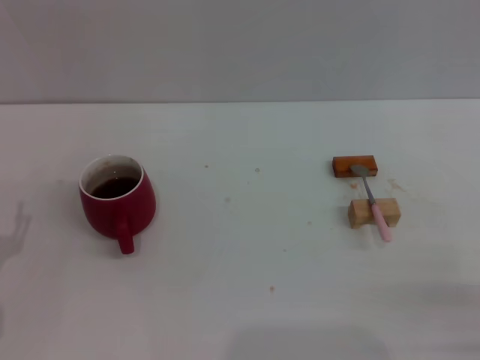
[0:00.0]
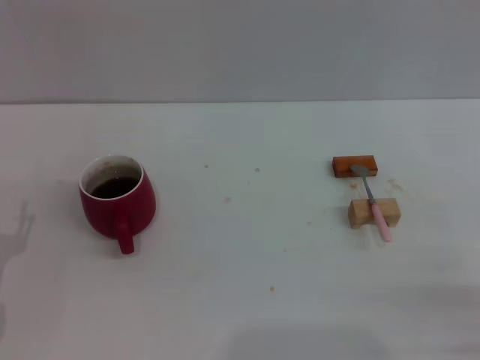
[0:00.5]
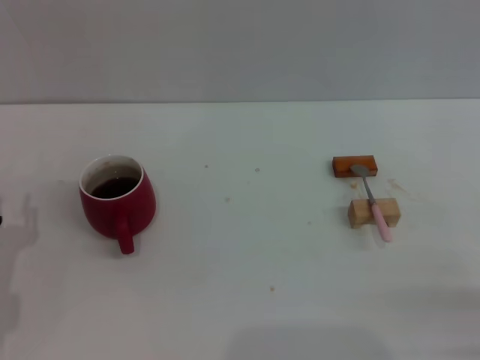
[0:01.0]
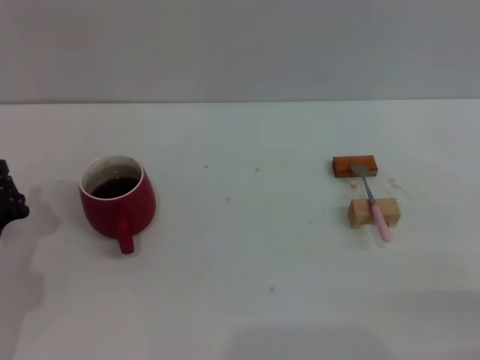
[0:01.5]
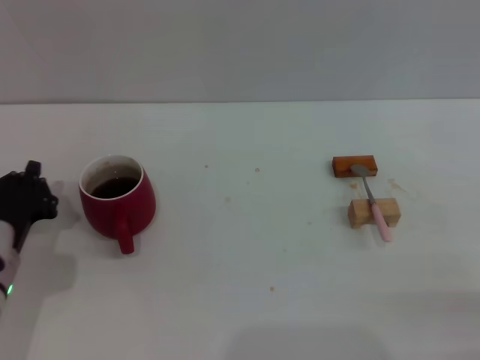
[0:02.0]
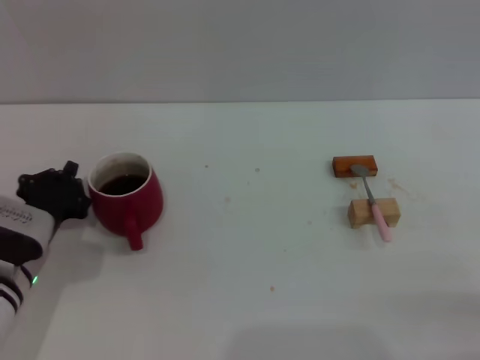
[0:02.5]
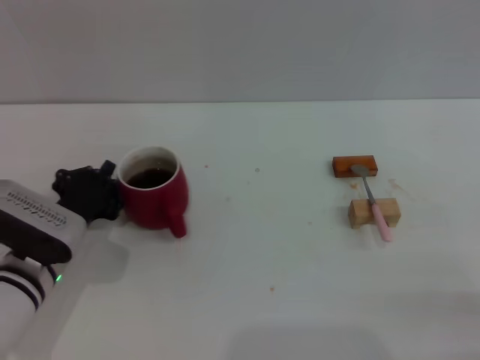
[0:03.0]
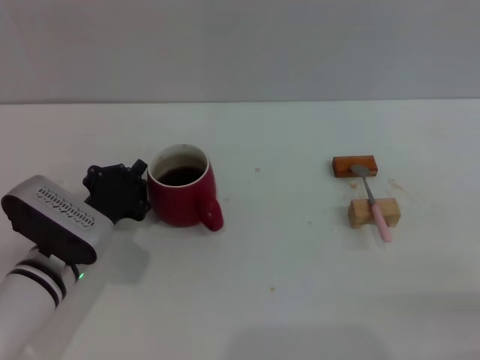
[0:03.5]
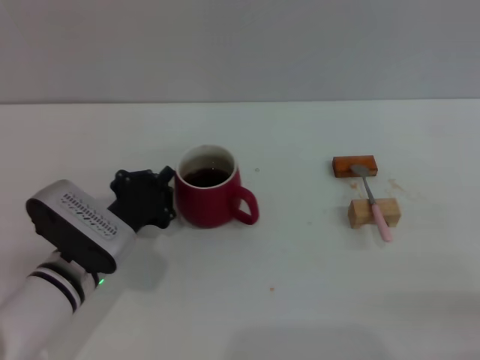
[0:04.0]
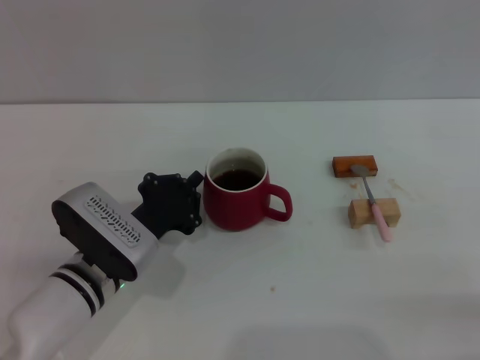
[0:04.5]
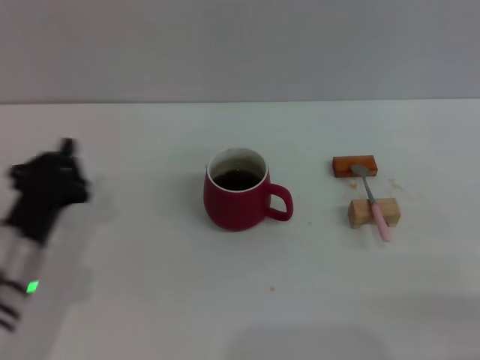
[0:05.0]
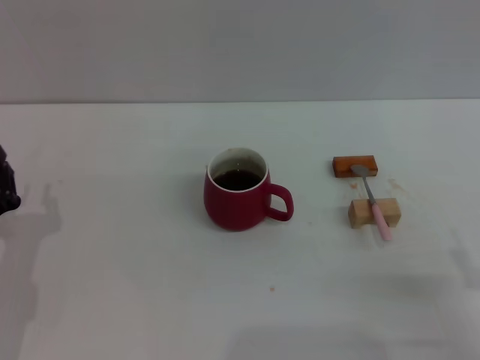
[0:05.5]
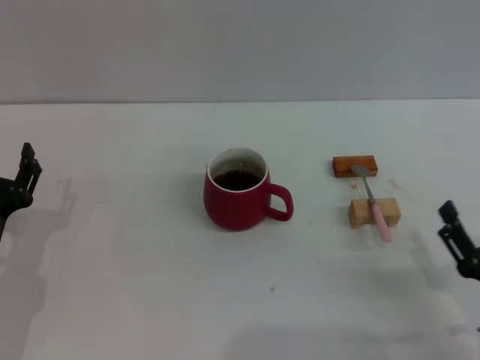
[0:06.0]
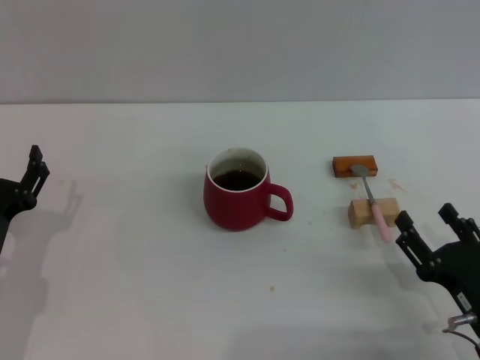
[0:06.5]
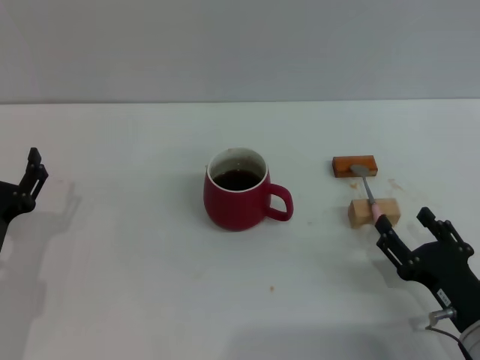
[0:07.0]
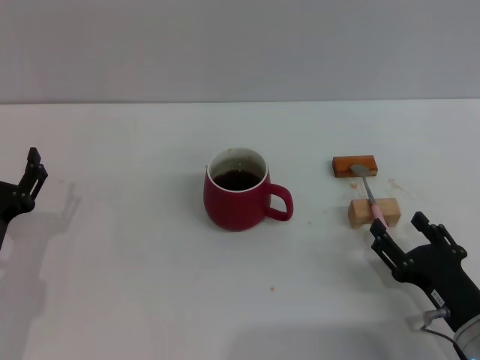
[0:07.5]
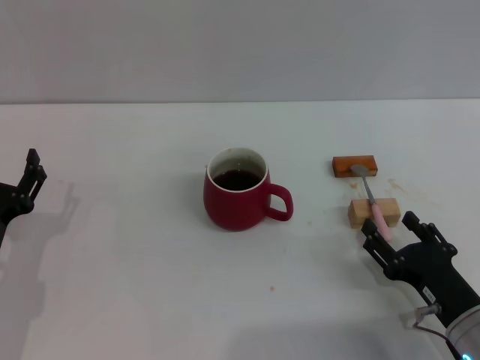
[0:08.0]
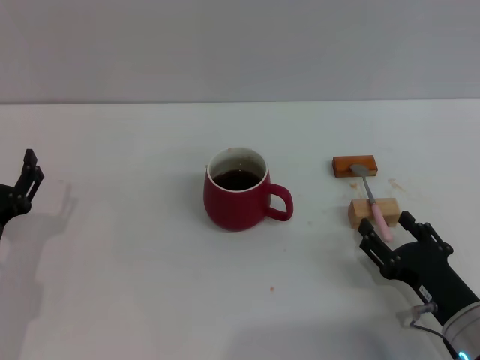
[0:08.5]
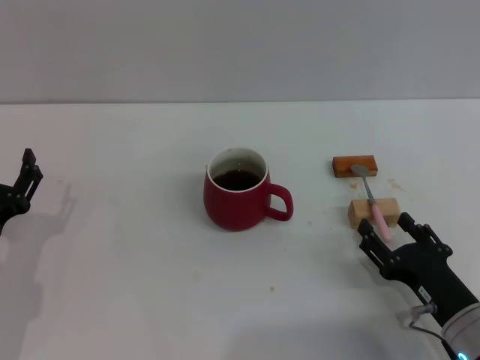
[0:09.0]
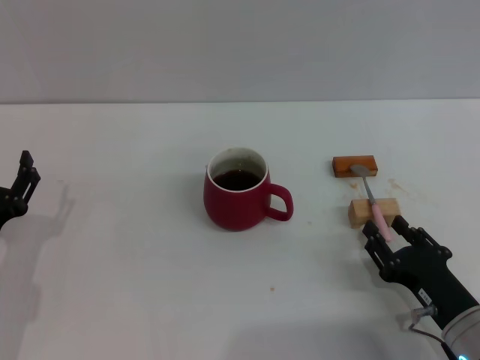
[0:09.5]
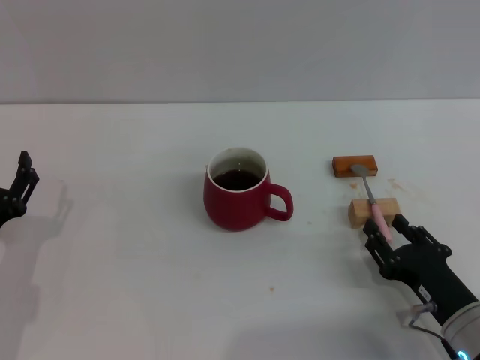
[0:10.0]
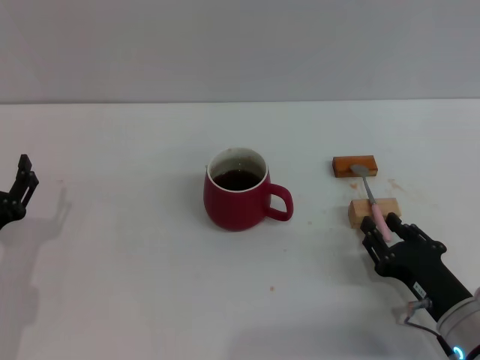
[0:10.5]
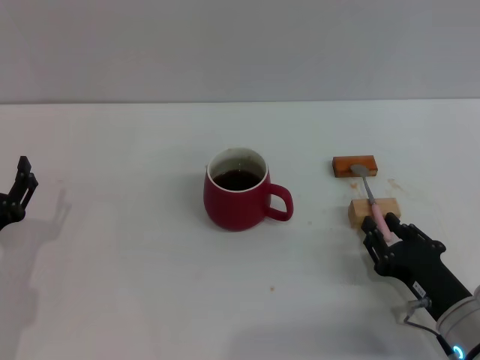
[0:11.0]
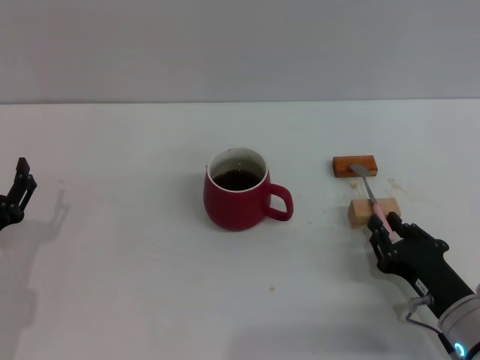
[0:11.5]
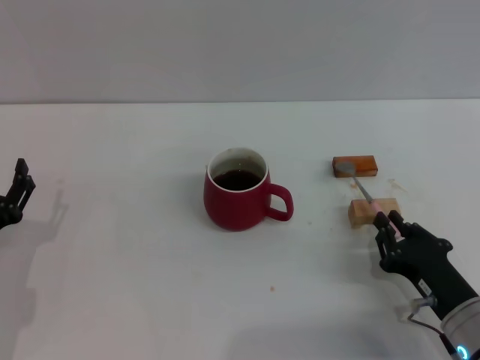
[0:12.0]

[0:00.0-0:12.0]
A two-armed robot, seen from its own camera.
Task of the whole recording: Move the red cup to the center, lift the pink spoon, stir it three times in the cup, and put the spoon into the cup.
Step, 0:00.0 to 0:07.0: Move the cup with coffee to the center of view with the left gripper.
0:00.0 to 0:02.0: The left gripper travels forward by some 5 cm, and closes.
0:02.0 to 0:04.0: The left gripper travels to the right by some 10 cm.
0:04.0 to 0:06.0: The left gripper shifts approximately 10 cm to the left and backward, and opens. Meanwhile the right gripper goes some 5 cm to the left.
0:06.0 to 0:08.0: The right gripper changes place by about 5 cm. Meanwhile the left gripper opens up.
0:08.0 to 0:10.0: The right gripper closes up.
0:10.0 to 0:12.0: The right gripper closes its fingers.

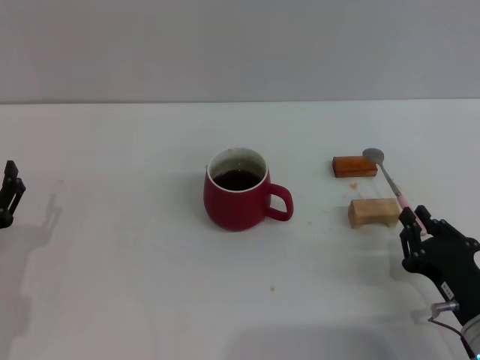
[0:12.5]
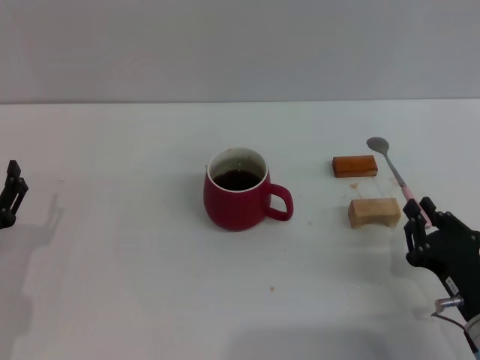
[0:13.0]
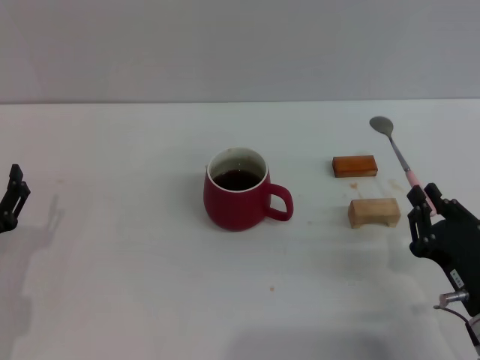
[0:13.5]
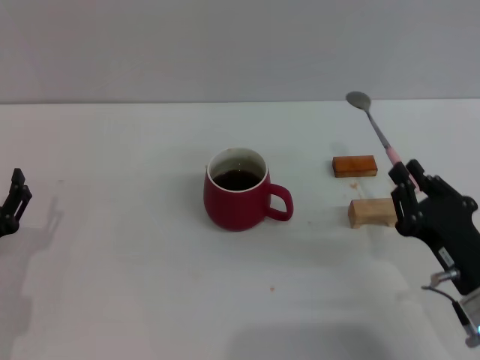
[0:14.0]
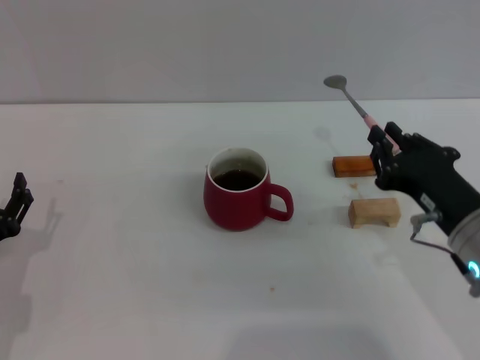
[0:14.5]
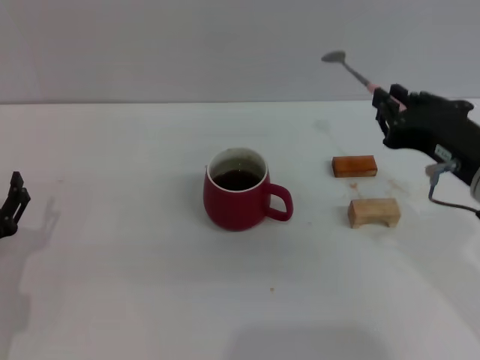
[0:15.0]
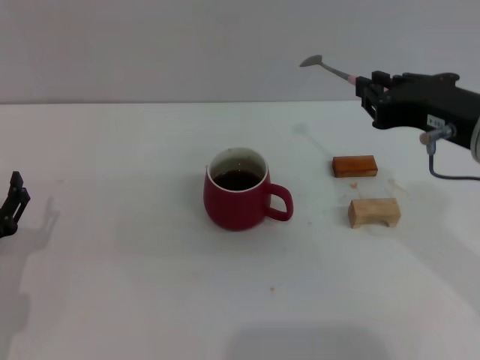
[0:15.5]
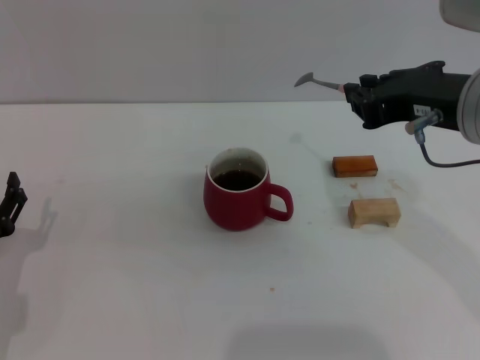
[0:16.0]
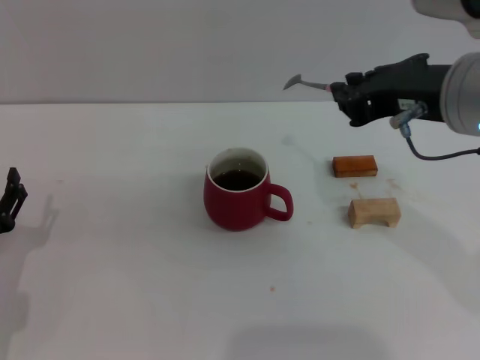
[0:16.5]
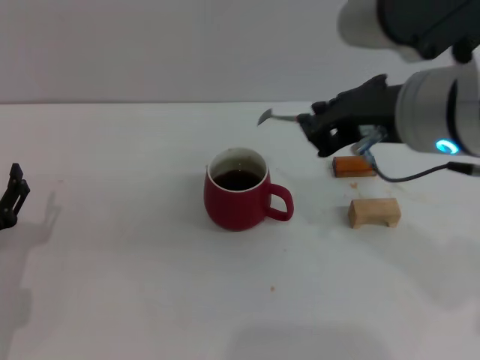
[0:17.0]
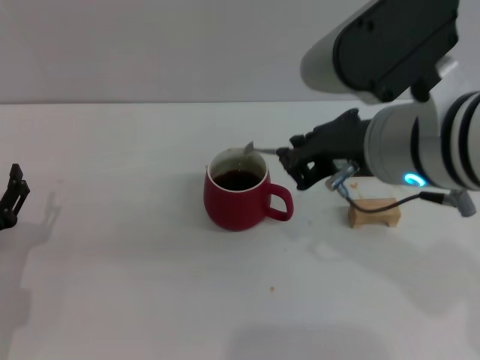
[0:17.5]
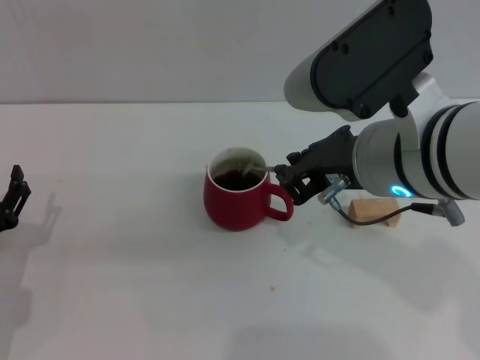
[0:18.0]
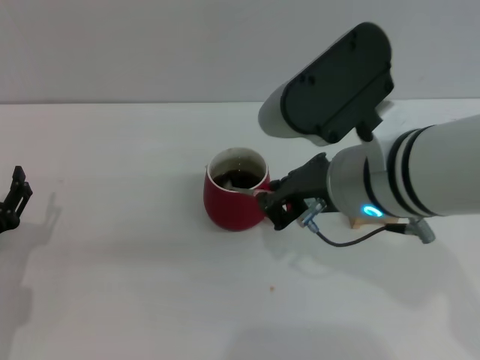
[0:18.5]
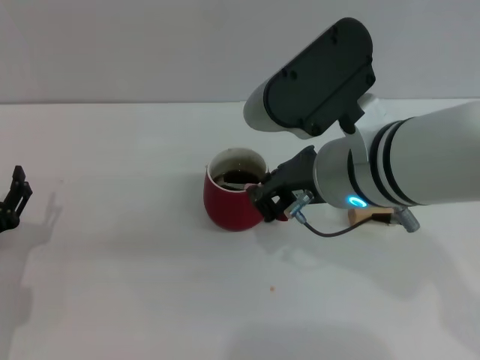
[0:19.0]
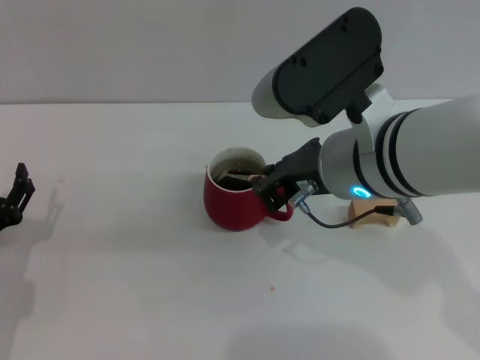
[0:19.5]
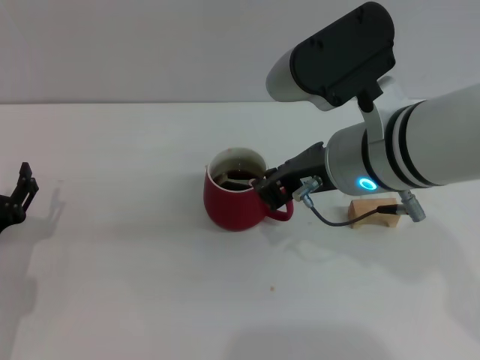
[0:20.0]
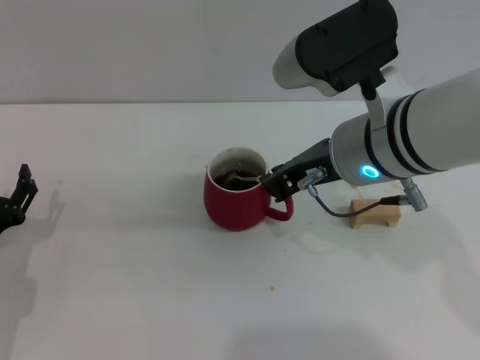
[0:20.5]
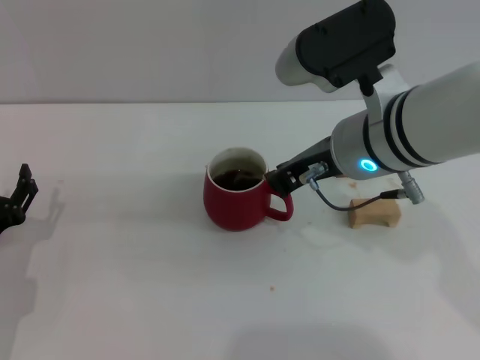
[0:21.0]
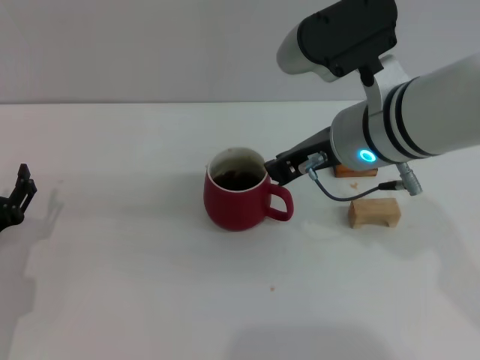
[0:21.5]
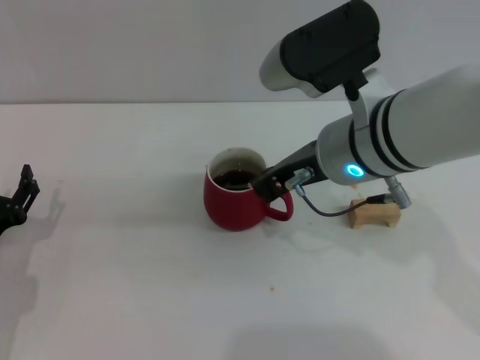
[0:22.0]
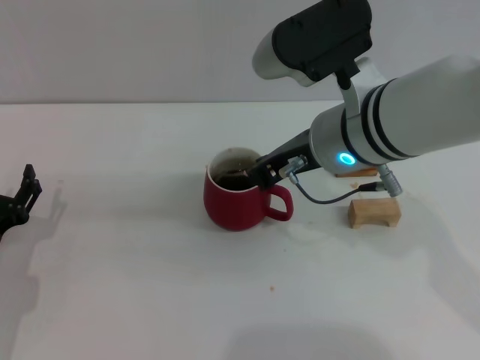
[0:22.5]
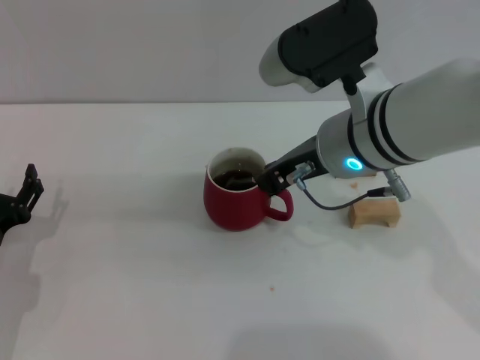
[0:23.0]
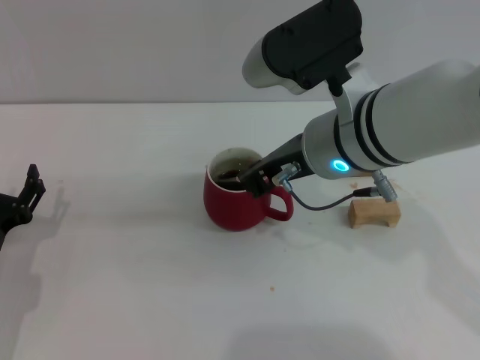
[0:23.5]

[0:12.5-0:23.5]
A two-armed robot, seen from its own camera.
Task of the whole recording: Move the red cup to the center, lift the pink spoon, stir it three times in the cup, and put the spoon into the cup.
0:12.5 to 0:14.5: The right gripper travels upward by about 10 cm.
0:14.5 to 0:16.0: The right gripper heads upward, covering roughly 15 cm.
0:16.0 to 0:18.0: The right gripper heads to the left, covering about 5 cm.
0:18.0 to 0:20.0: The grippers make only small movements.
0:20.0 to 0:23.5: The grippers move only a little.

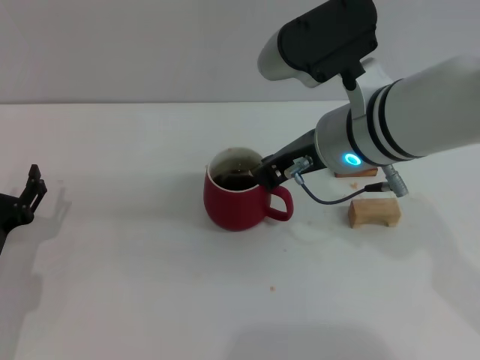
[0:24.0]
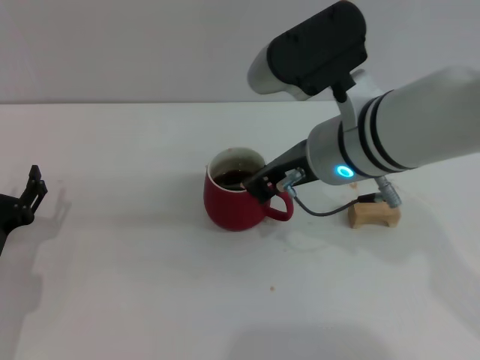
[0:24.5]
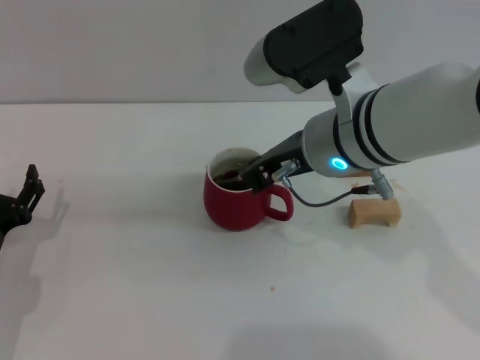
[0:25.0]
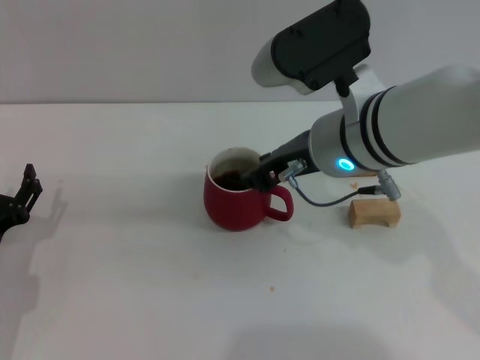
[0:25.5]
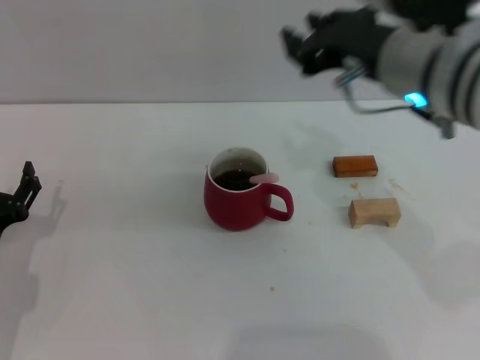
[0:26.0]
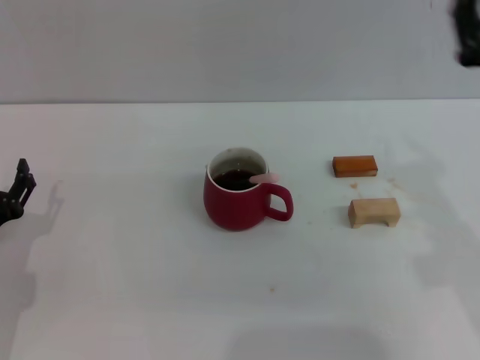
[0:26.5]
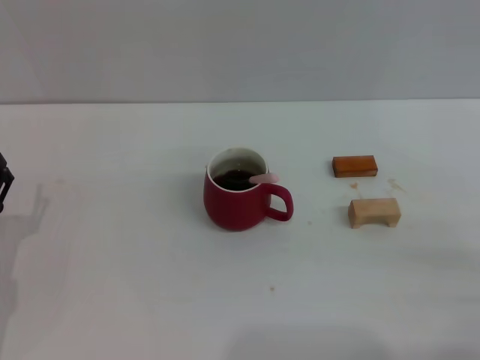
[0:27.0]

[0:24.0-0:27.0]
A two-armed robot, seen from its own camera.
Task of the whole recording: Move the red cup to the center, lift the pink spoon, stir it three times in the cup, and put the spoon into the cup.
0:24.0 to 0:25.5: The grippers stay close to where they were, moving slightly.
0:25.5 to 0:27.0: The right gripper is displaced to the right, backward and downward by some 30 cm.
